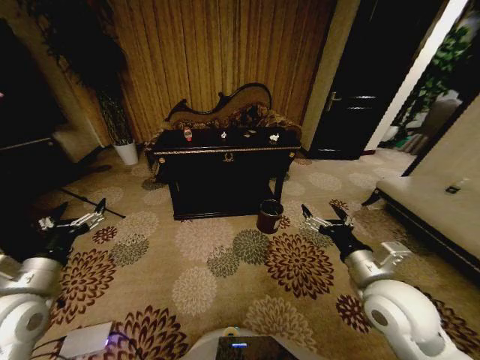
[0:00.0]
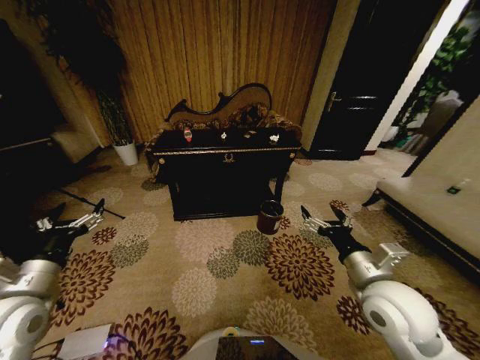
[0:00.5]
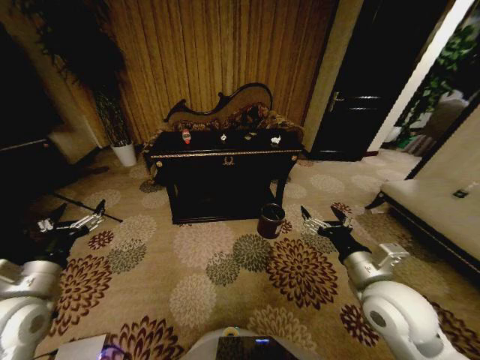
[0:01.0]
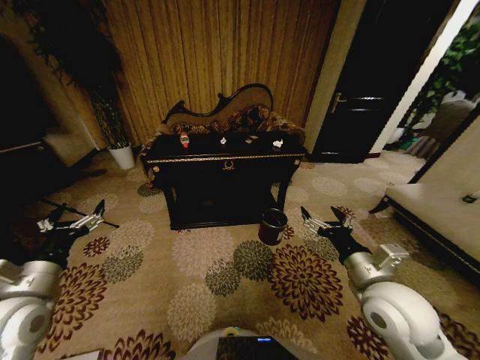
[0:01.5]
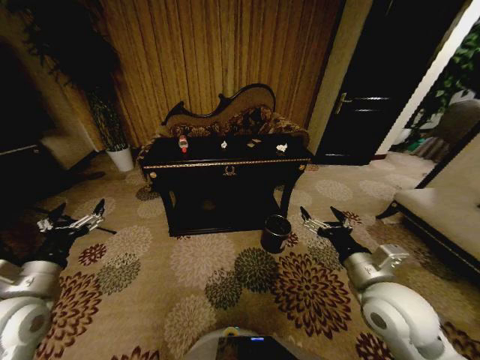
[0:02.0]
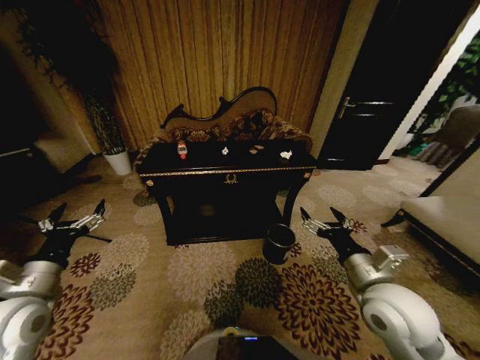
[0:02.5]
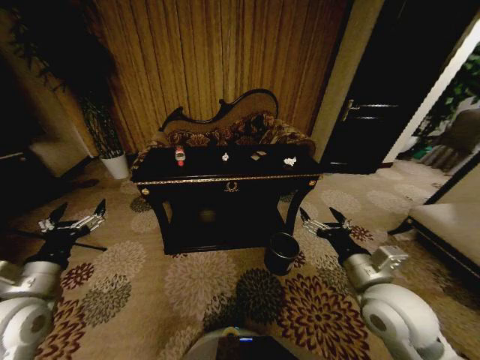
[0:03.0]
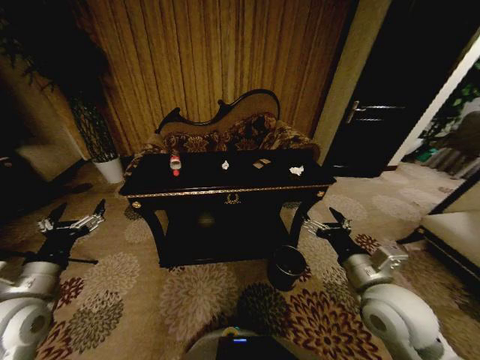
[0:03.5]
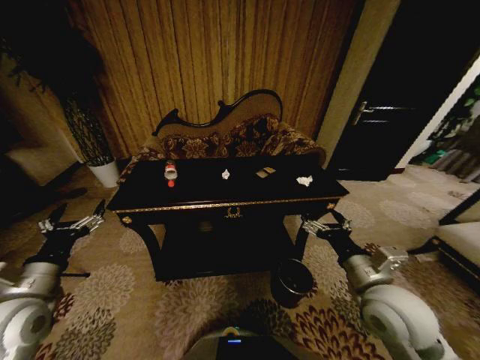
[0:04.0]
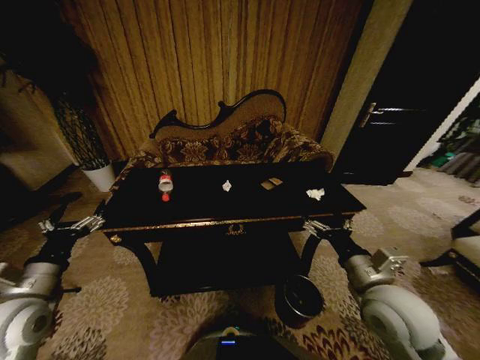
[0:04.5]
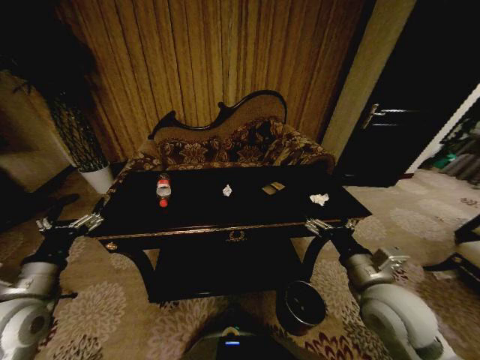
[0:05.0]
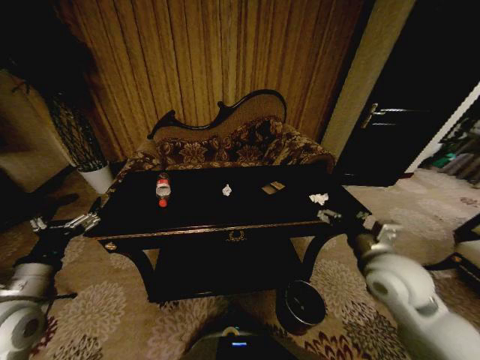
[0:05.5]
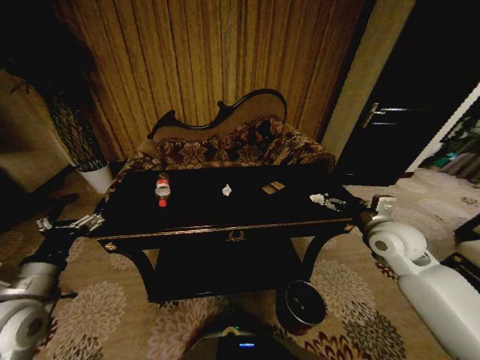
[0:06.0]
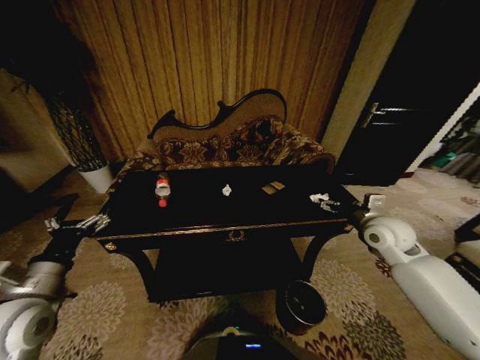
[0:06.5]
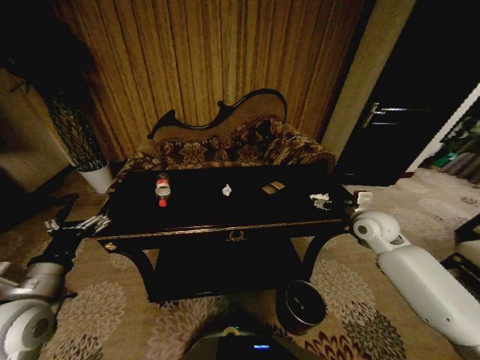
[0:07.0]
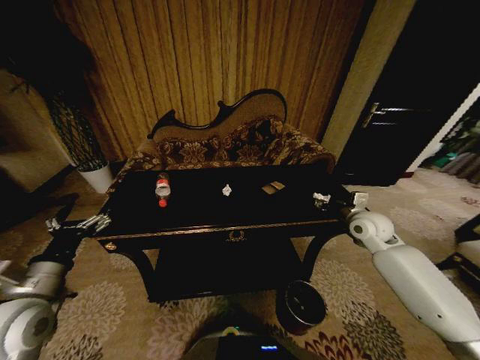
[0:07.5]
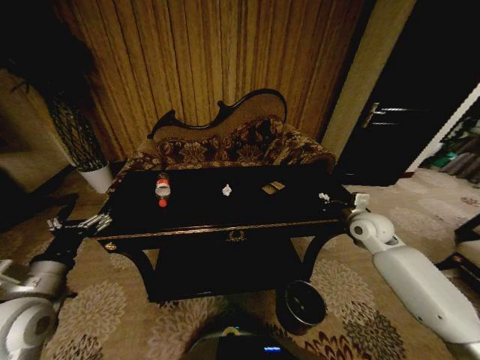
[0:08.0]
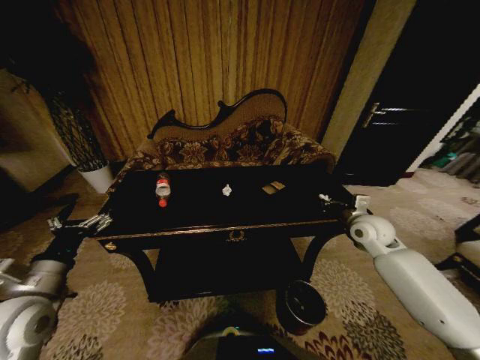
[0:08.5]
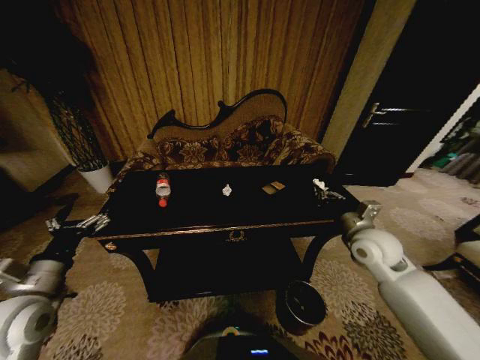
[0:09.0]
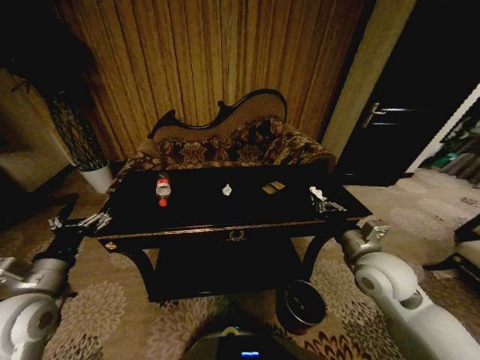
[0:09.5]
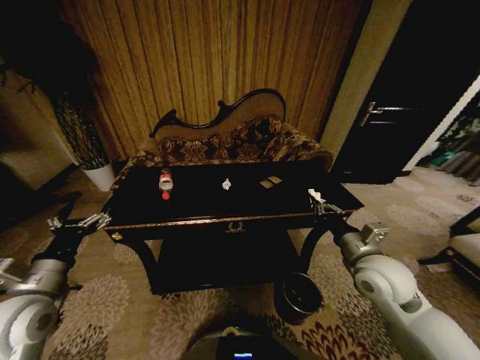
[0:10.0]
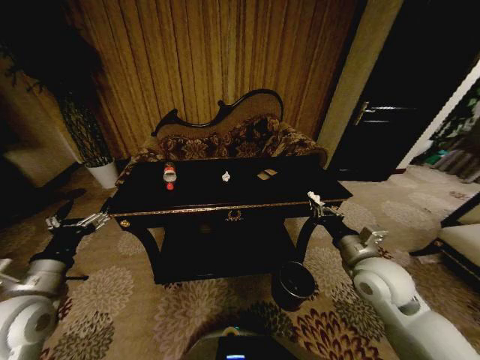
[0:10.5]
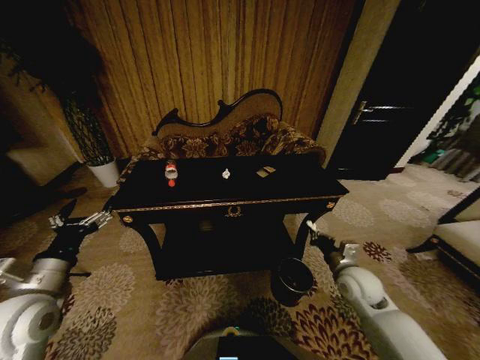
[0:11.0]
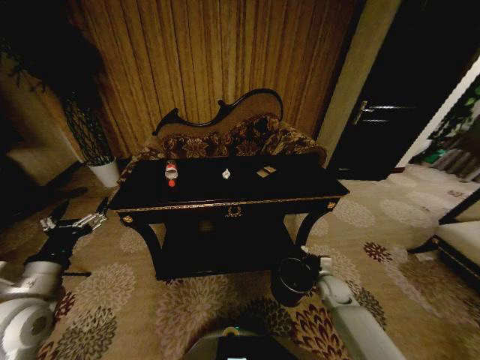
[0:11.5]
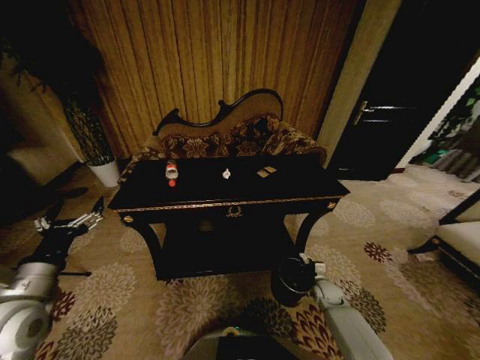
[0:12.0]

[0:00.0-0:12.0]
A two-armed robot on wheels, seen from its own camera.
Task of the whole recording: Move to the front of the table and place the trash on the table into the trash bin.
0:04.0 to 0:06.0: The right gripper goes some 15 cm forward and to the right.
0:06.0 to 0:08.0: The right gripper moves forward, some 5 cm, and closes up.
0:08.0 to 0:10.0: The right gripper moves backward and to the left, about 15 cm.
0:10.0 to 0:12.0: The right gripper heads downward, covering approximately 30 cm.

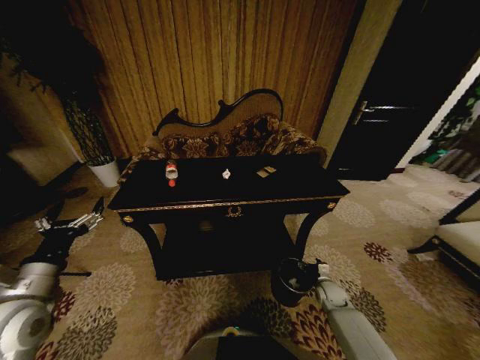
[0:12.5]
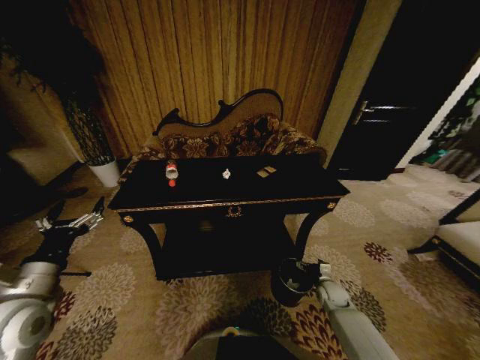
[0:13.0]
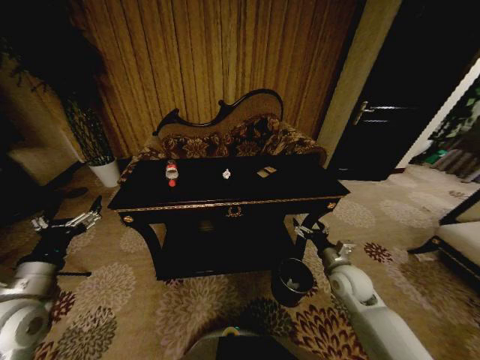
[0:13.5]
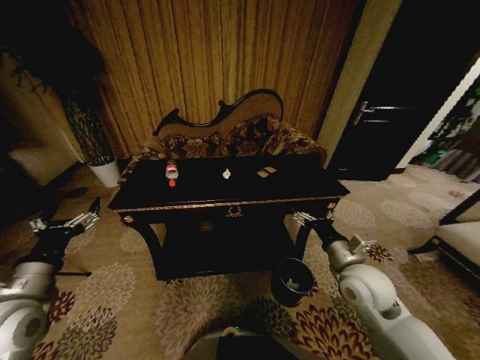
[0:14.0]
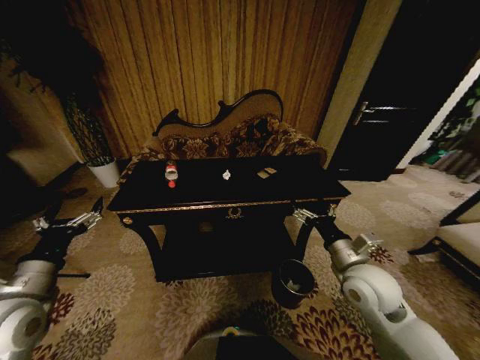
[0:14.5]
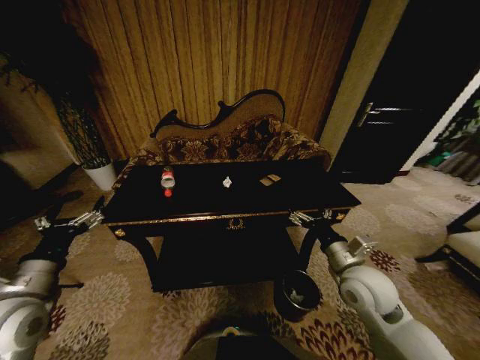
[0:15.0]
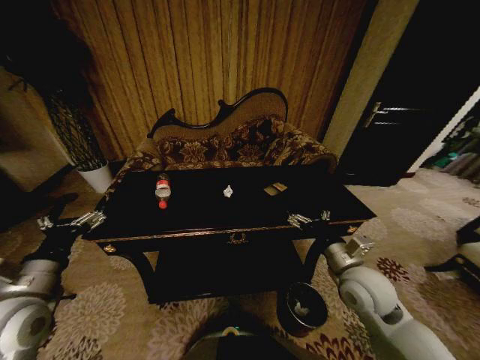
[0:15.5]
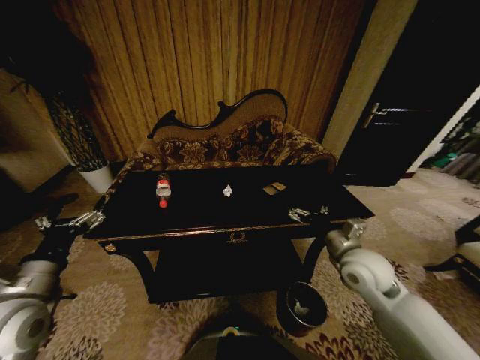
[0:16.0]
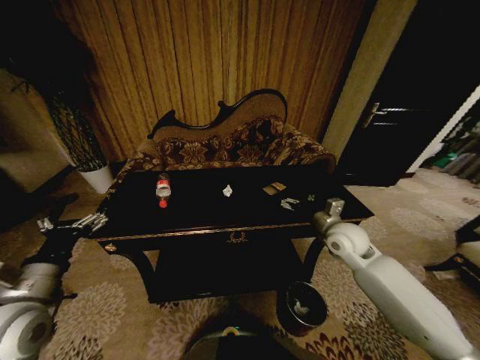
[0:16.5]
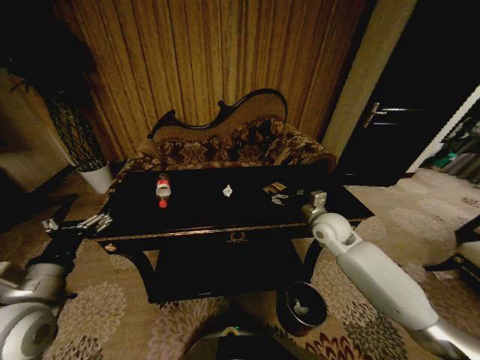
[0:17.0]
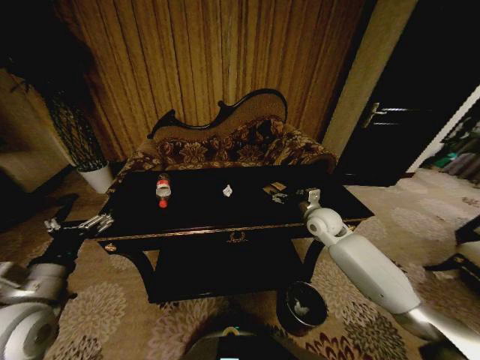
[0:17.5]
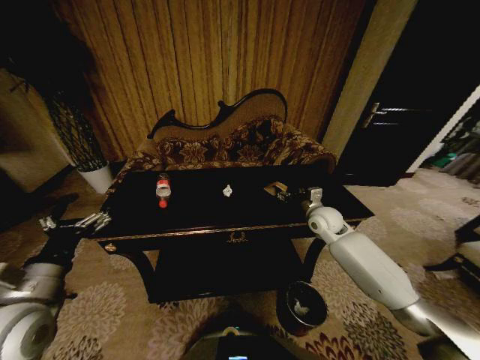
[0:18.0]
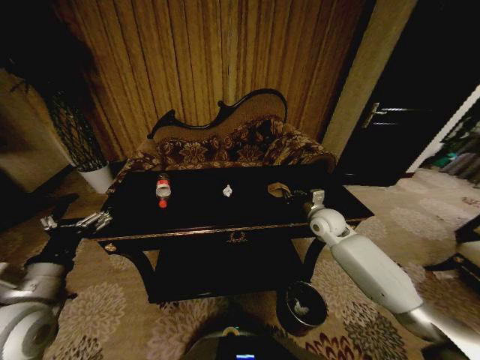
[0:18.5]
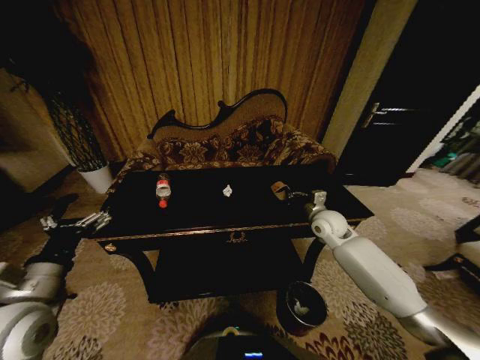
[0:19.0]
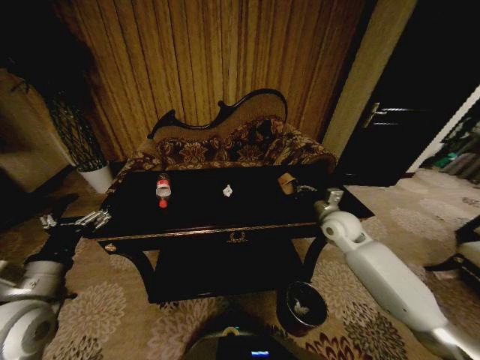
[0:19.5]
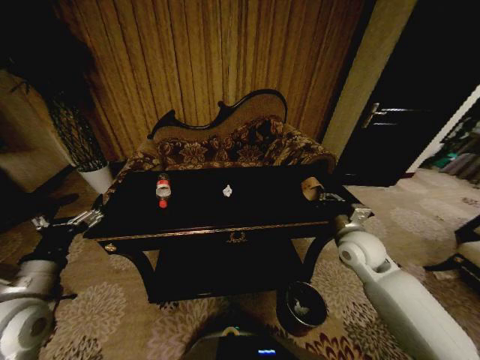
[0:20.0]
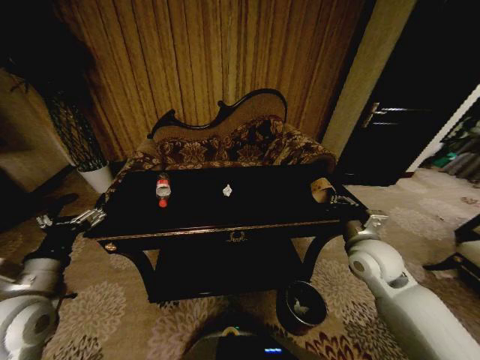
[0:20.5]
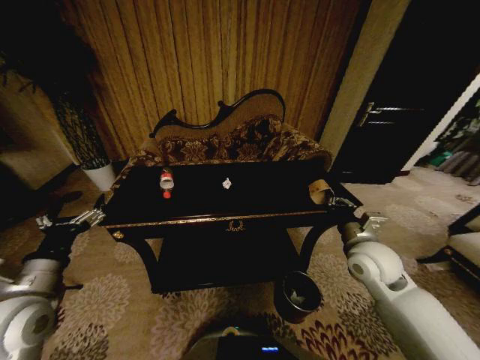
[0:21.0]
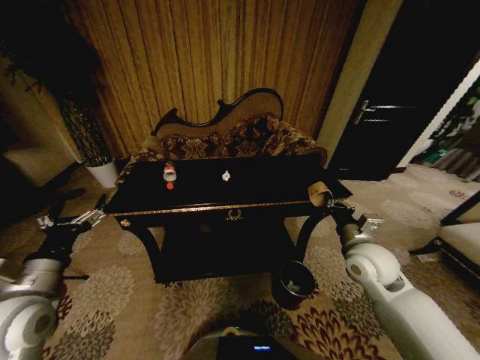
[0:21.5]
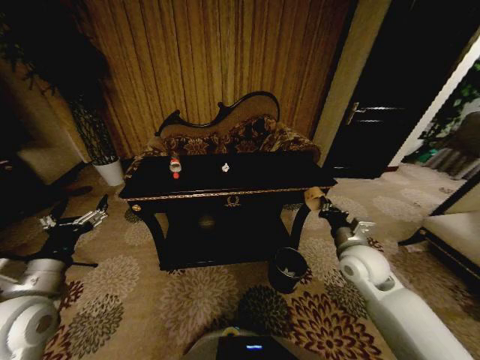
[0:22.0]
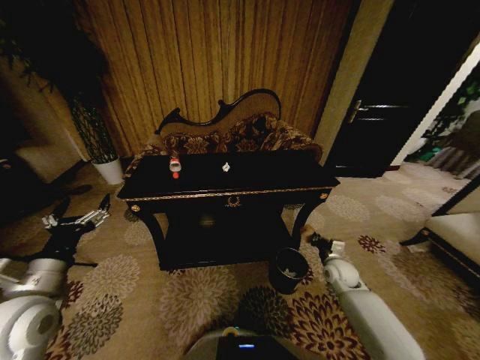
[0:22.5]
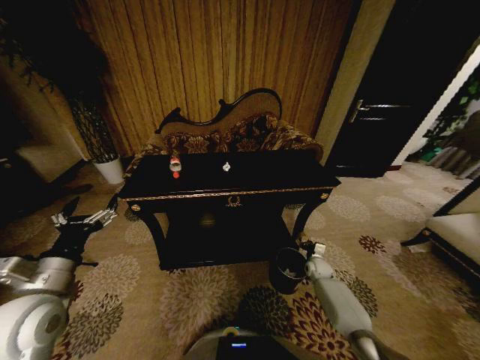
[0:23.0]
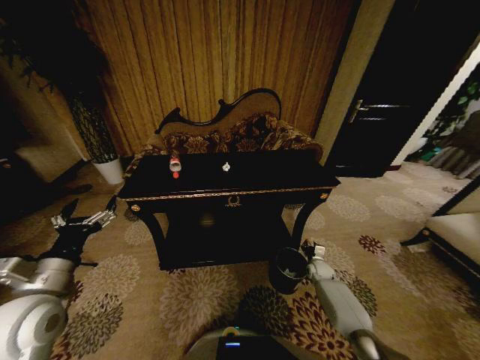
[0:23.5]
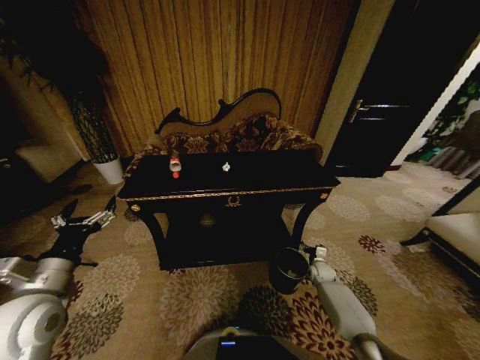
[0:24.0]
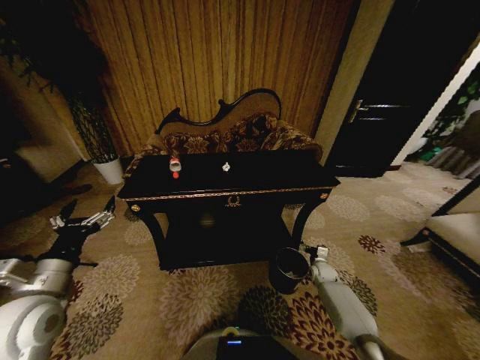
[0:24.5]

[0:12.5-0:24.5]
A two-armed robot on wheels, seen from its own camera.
Task of the whole recording: Move to the front of the table and place the trash on the table into the trash bin.
0:12.5 to 0:14.5: The right gripper travels upward by some 30 cm.
0:14.5 to 0:16.5: The right gripper moves forward, about 10 cm.
0:16.5 to 0:18.5: The right gripper is displaced forward by roughly 10 cm, and closes its fingers.
0:18.5 to 0:20.5: The right gripper heads backward, covering some 15 cm.
0:20.5 to 0:22.5: The right gripper moves downward, roughly 20 cm.
0:22.5 to 0:24.5: The right gripper travels downward by roughly 10 cm, and opens its fingers.

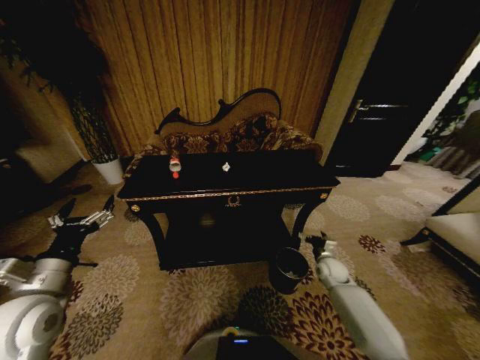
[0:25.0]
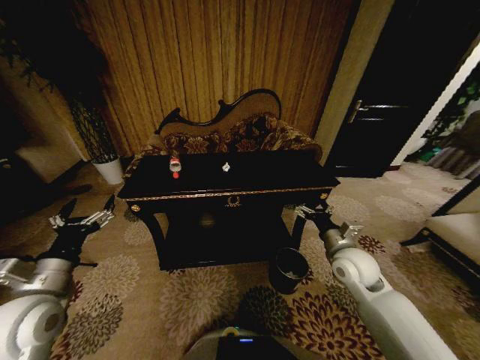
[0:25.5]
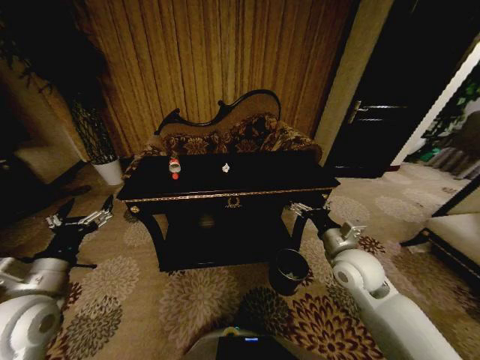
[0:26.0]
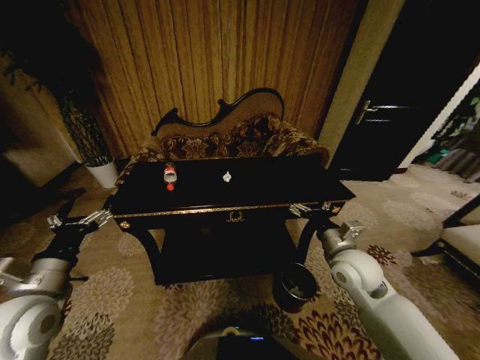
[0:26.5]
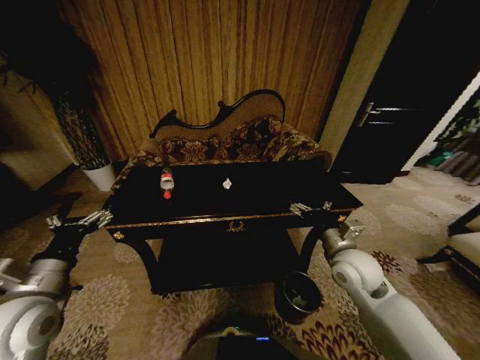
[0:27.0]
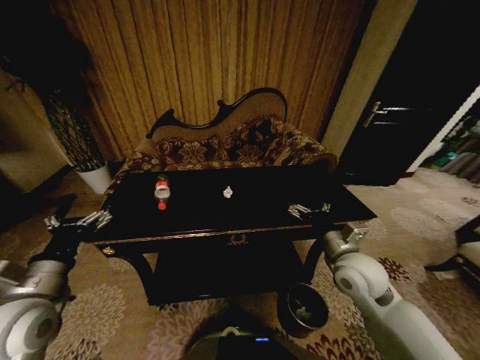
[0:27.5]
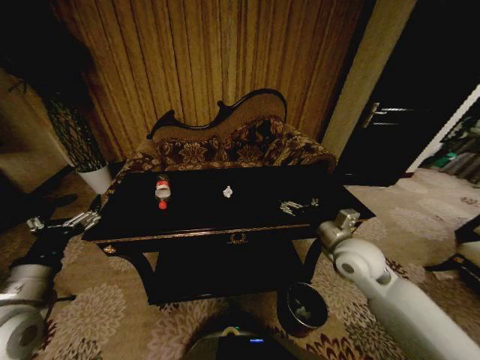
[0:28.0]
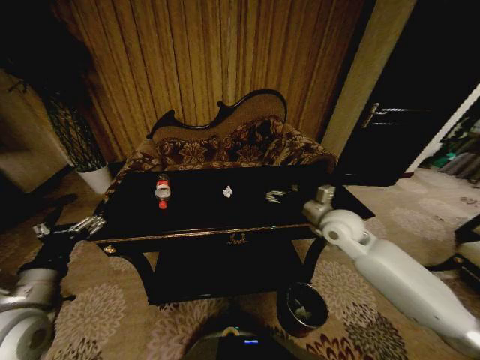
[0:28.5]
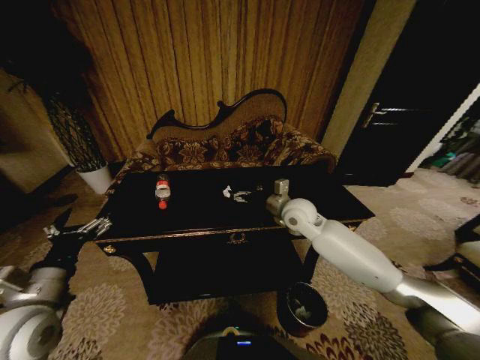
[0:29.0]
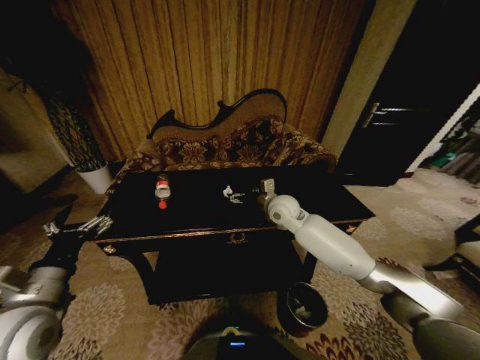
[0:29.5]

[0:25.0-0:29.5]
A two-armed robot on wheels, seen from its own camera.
Task of the whole recording: Move to the front of the table and place the trash on the table into the trash bin.
0:25.0 to 0:27.0: The right gripper travels upward by approximately 20 cm.
0:27.0 to 0:29.5: The right gripper goes about 20 cm forward and to the left.
